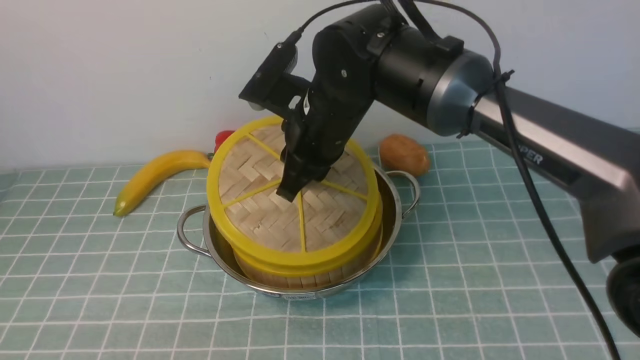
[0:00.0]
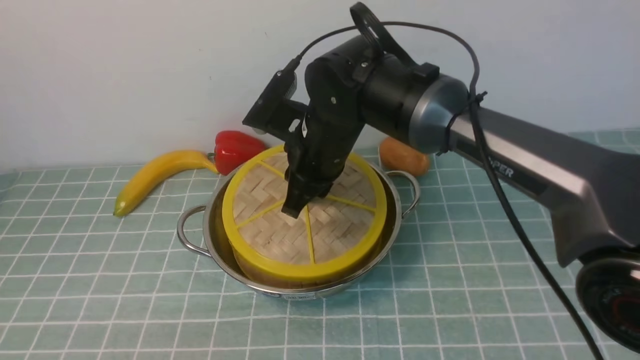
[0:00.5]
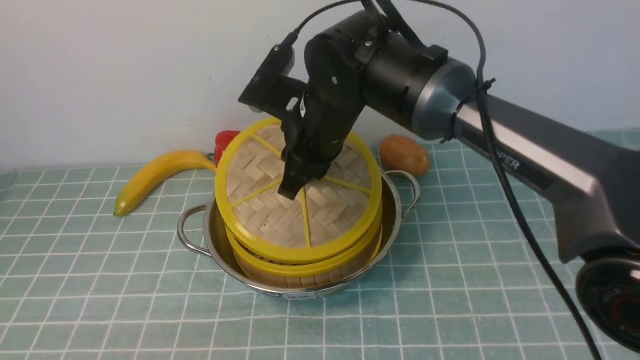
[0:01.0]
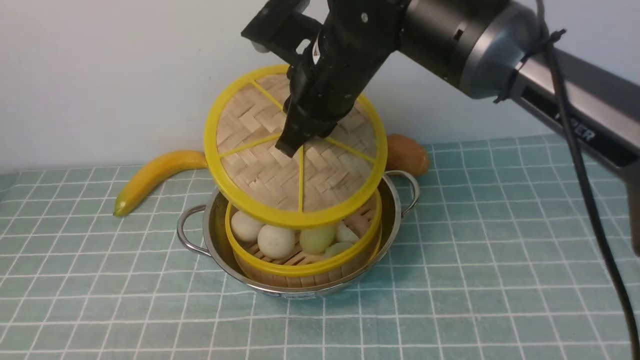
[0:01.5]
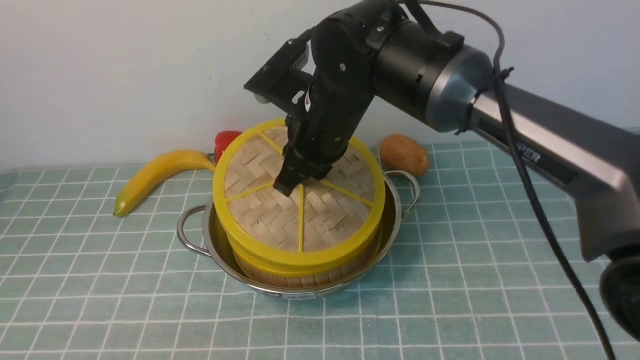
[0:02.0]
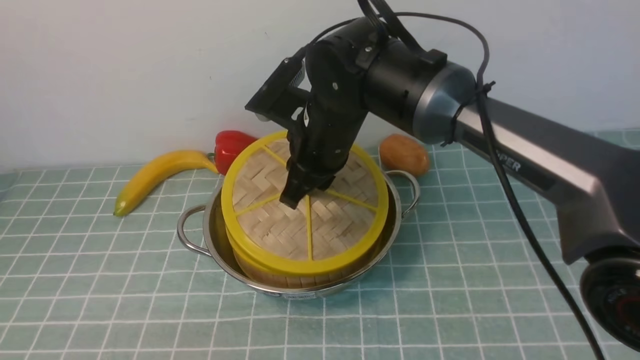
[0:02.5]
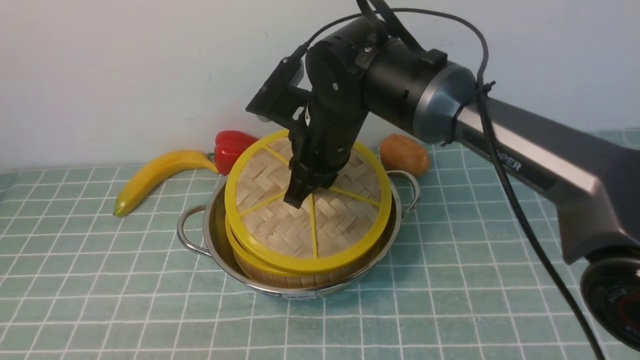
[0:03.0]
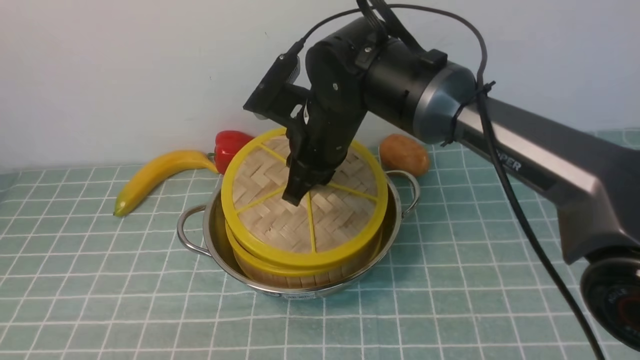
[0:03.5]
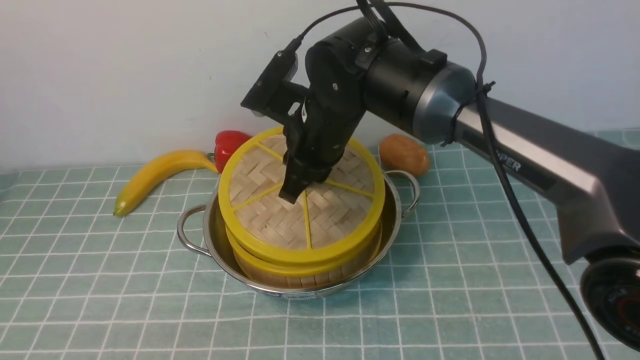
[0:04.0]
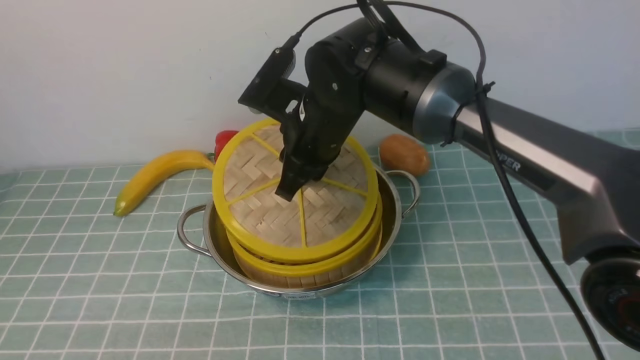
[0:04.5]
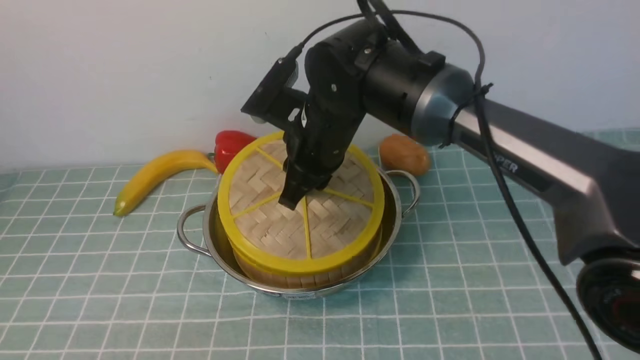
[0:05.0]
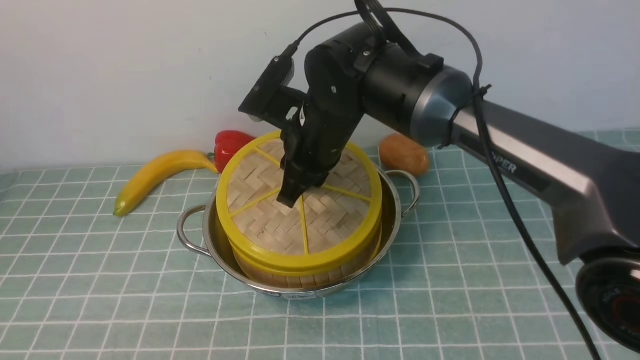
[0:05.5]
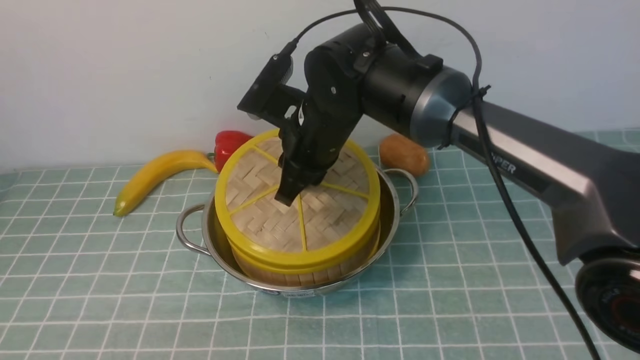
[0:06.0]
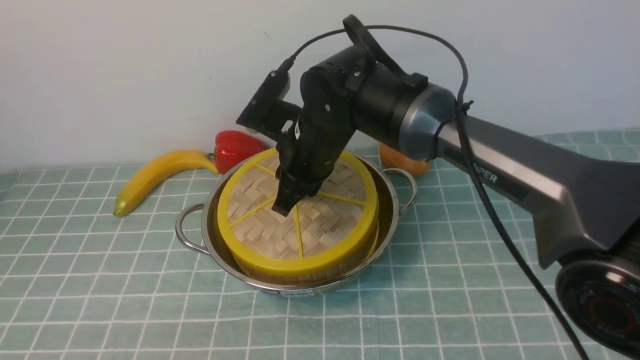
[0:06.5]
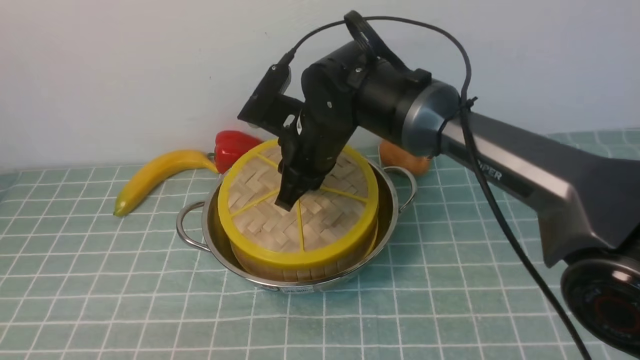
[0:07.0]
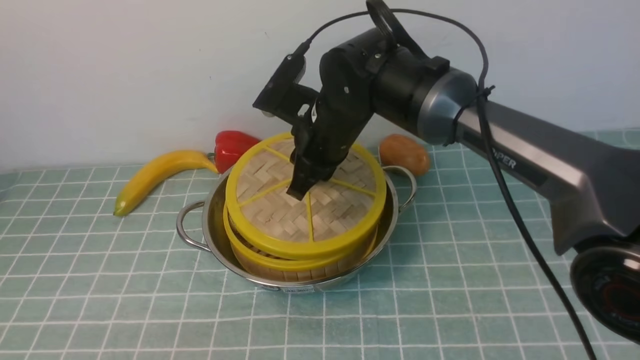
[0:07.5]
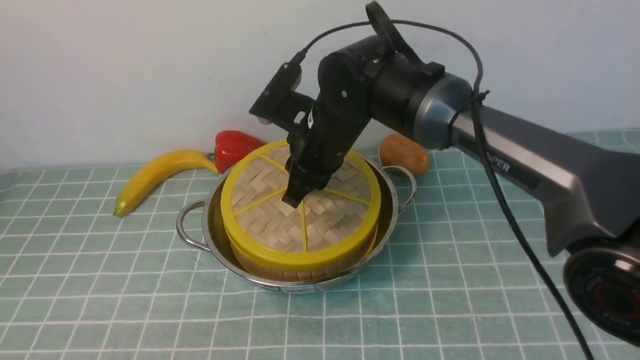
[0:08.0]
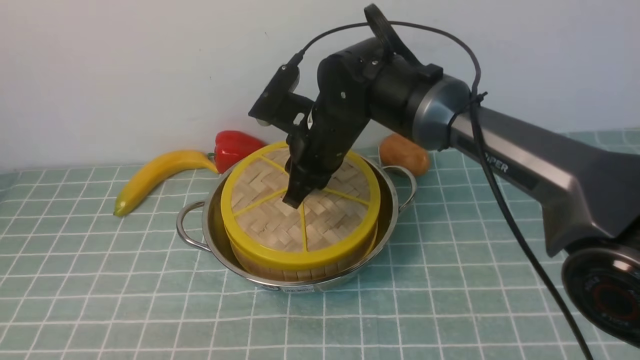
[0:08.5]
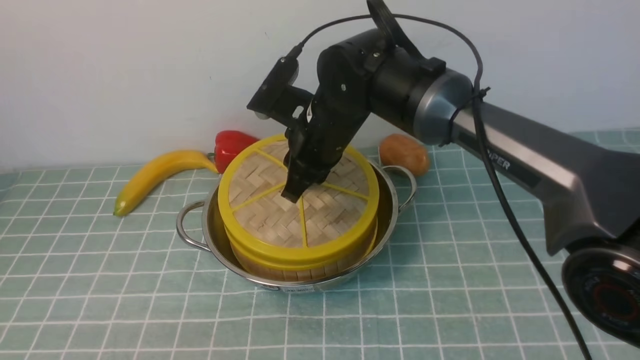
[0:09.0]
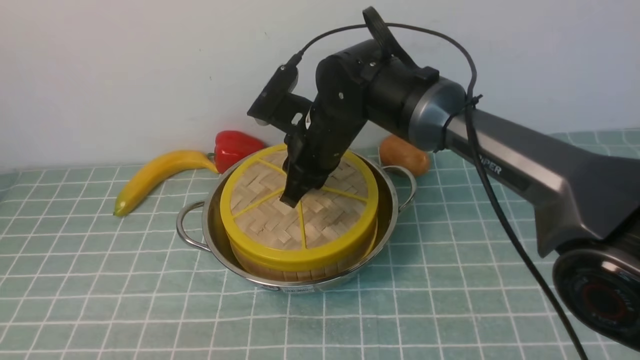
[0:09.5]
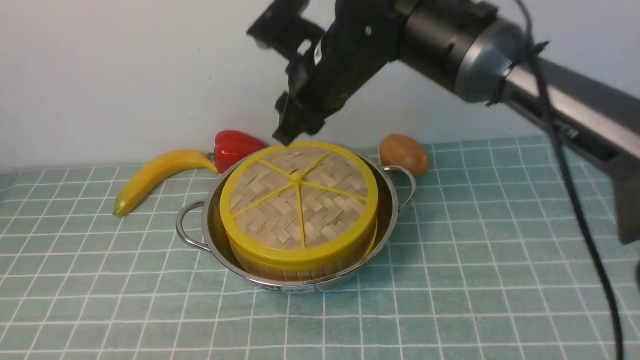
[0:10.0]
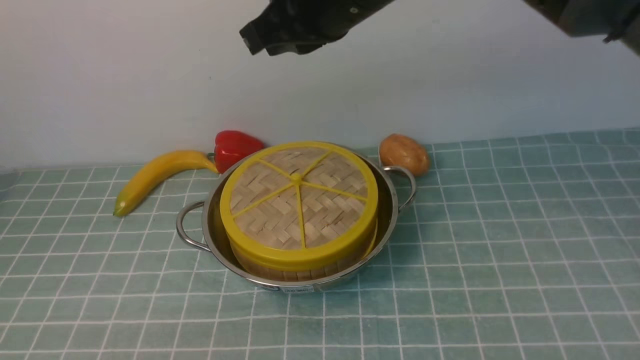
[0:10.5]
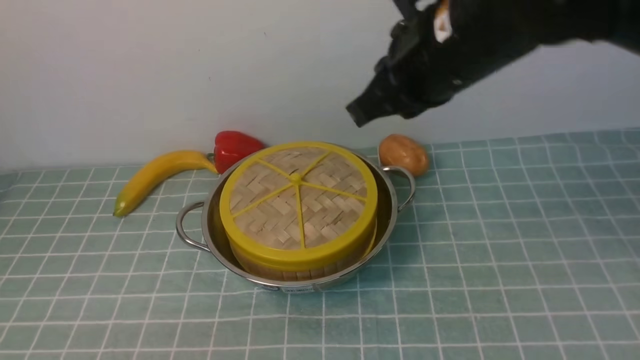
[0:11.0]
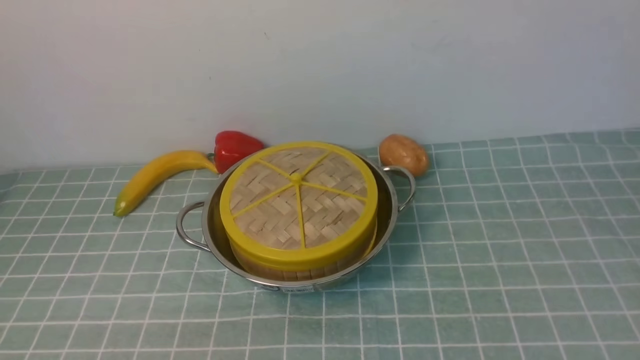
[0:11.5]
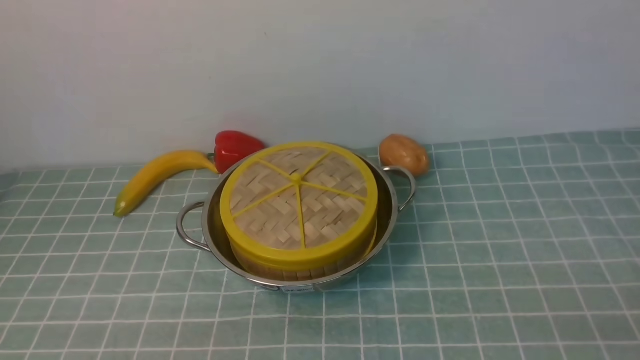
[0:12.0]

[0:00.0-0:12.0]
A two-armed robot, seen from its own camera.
Task of the whole recording: place the steamer in the pot on the blue tablecloth, and put the lid on the steamer.
Step, 0:00.0 to 0:10.5: use the right arm to place the steamer lid on the steamer.
0:00.0 to 0:04.0: The grippers move only a little.
0:04.0 to 0:06.0: Both grippers stay about where they are.
0:06.0 to 0:08.0: The grippers make only small movements.
0:08.0 to 0:10.0: The right gripper travels upward by roughly 5 cm, and opens.
0:10.0 to 0:12.0: The right gripper shifts about 50 cm backward and to the right, and closes.

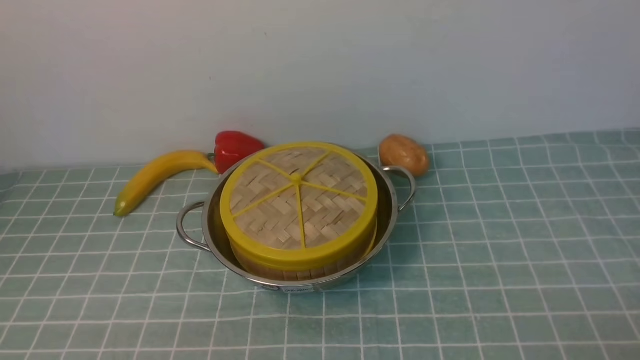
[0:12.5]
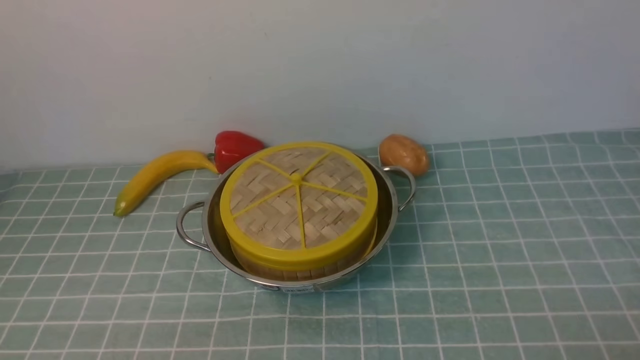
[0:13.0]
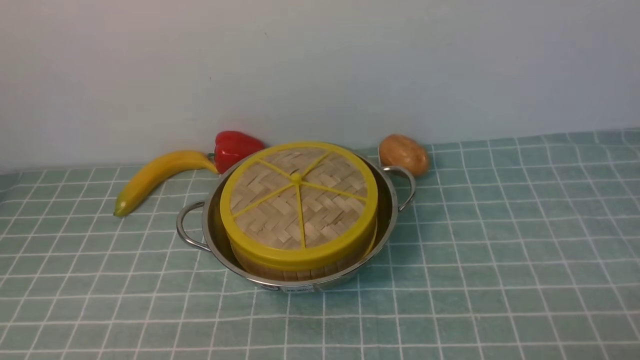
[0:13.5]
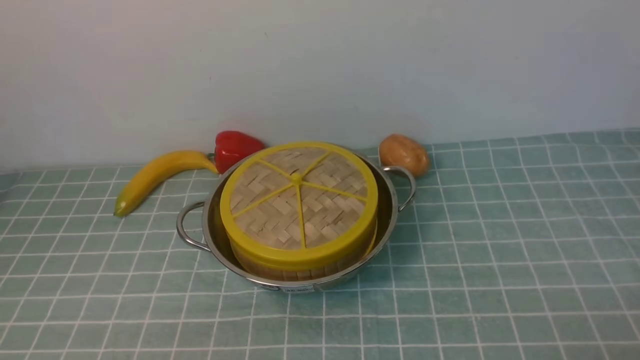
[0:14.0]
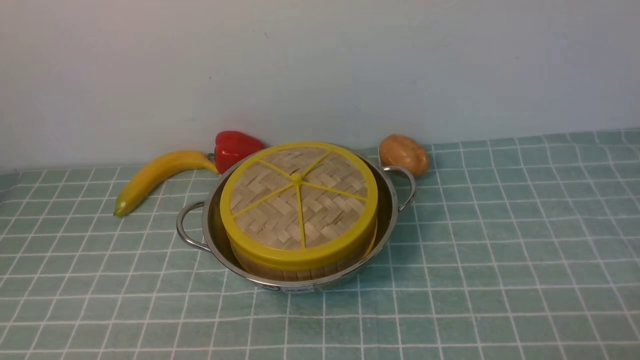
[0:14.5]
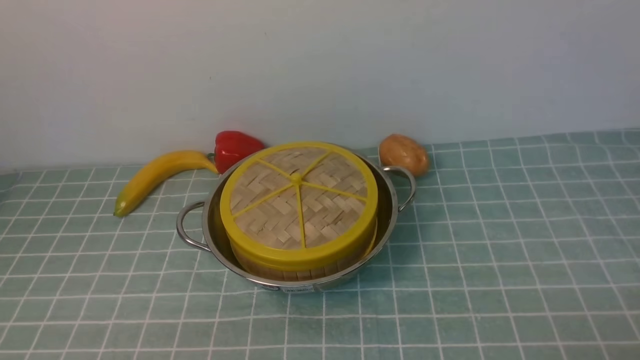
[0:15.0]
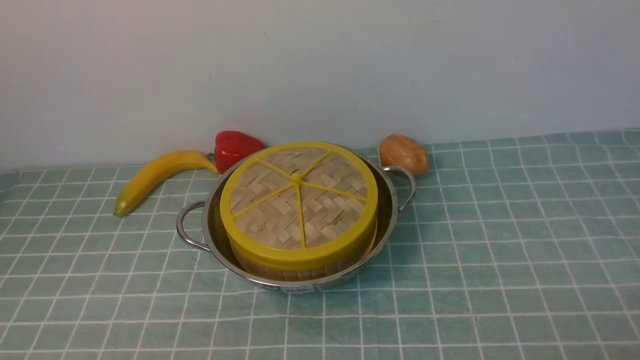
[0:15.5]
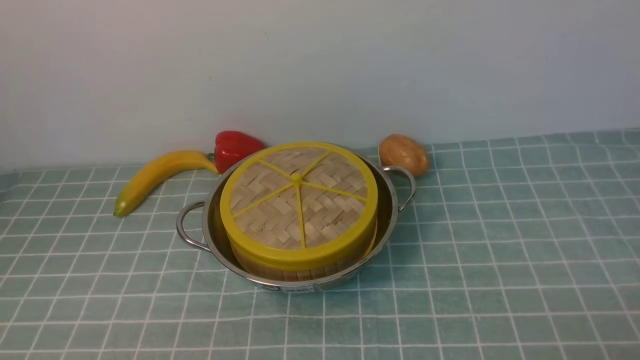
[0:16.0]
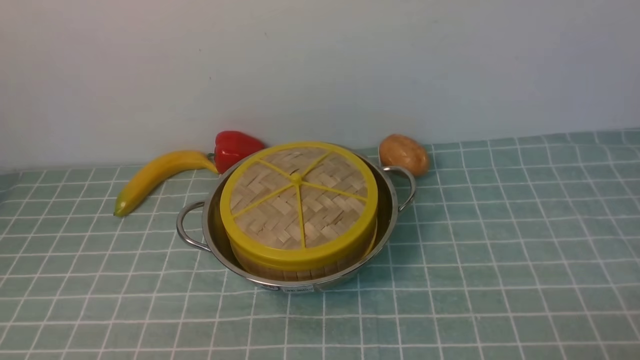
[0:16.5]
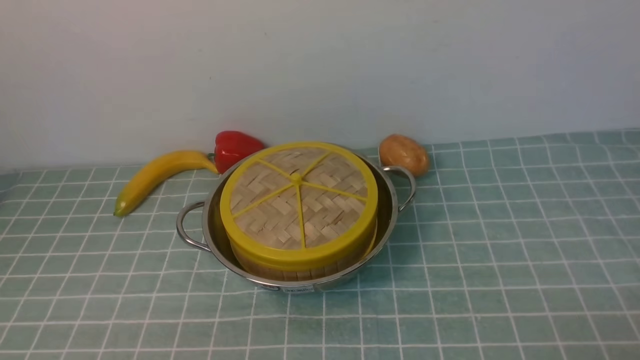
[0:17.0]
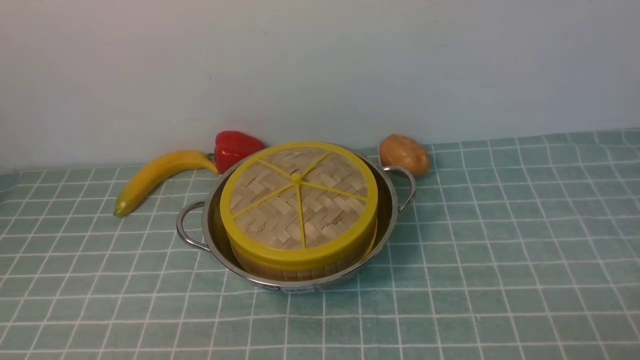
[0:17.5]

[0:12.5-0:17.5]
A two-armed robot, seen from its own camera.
Task of the whole recording: place the steamer in the pot on the blue tablecloth, and put the lid on the steamer.
0:15.0 to 0:17.5: Both grippers stay put.

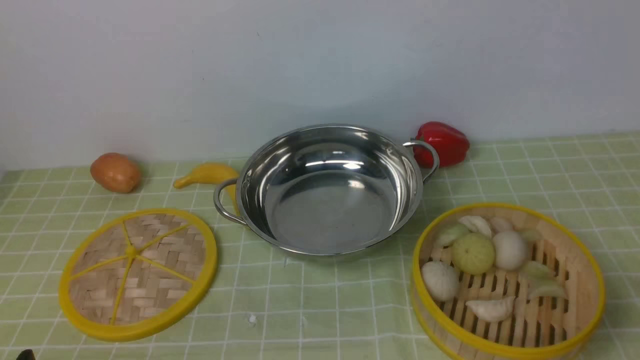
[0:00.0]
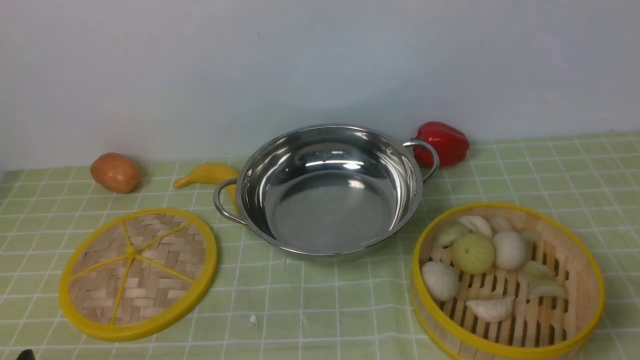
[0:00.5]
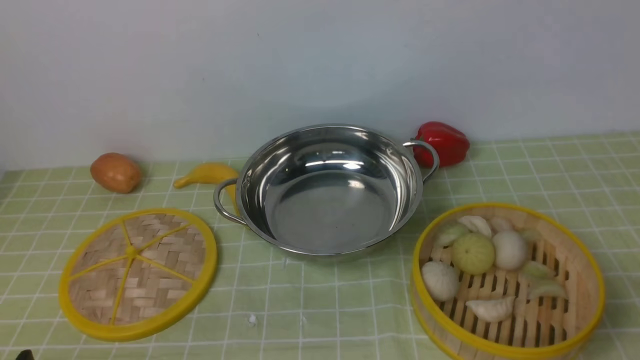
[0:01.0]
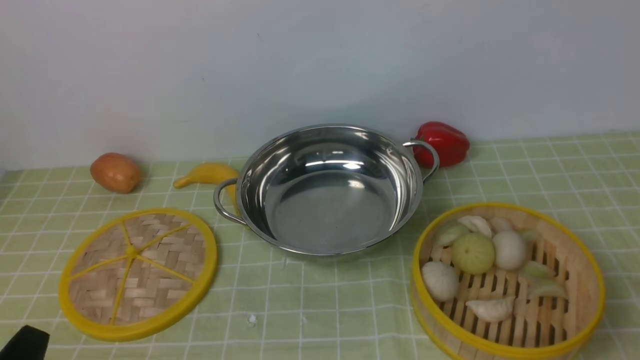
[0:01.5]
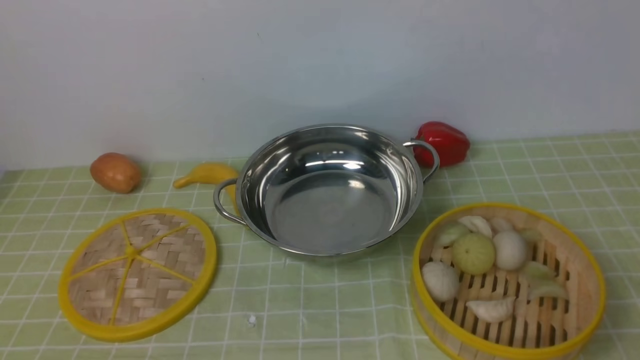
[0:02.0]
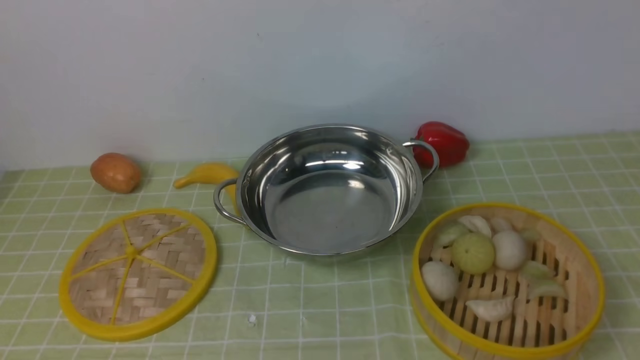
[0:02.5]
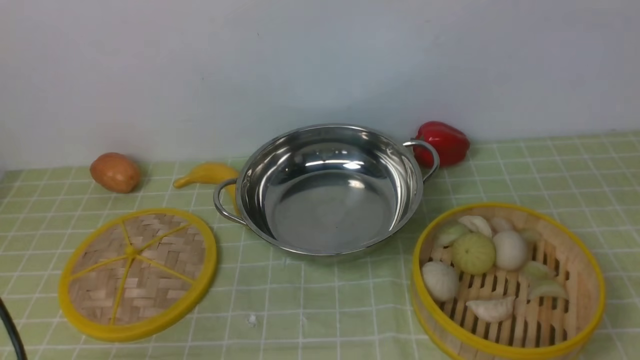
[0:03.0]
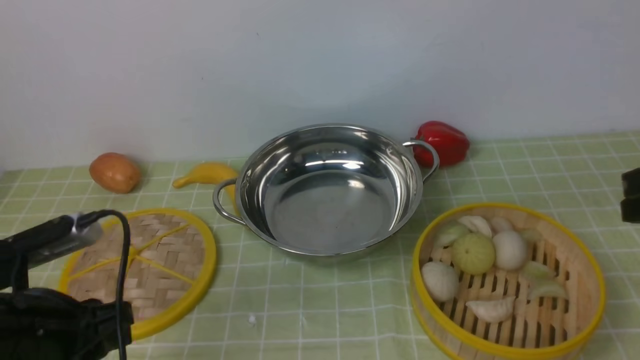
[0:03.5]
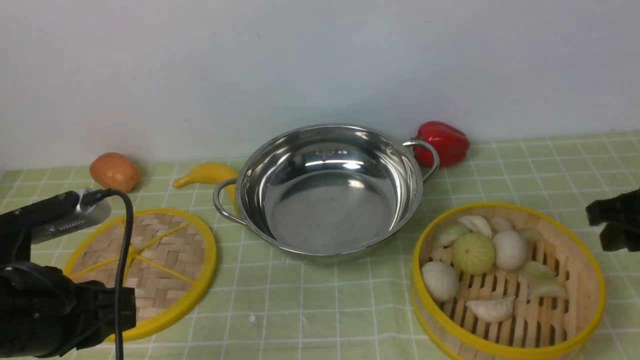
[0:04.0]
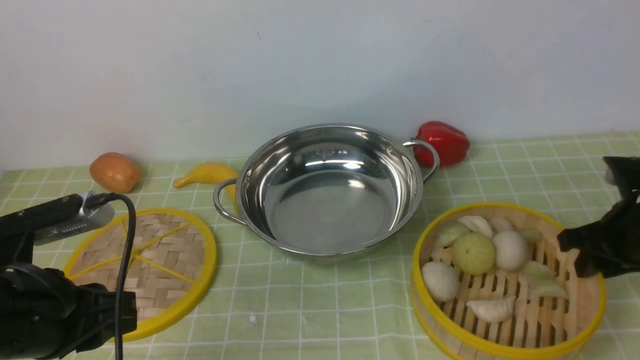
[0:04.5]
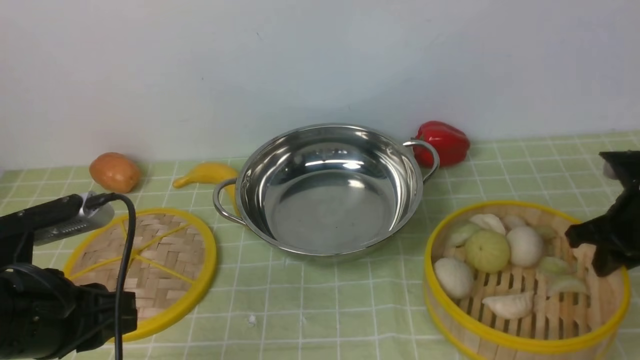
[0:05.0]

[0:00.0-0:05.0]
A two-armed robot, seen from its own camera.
Task of the whole recording: place the steamer in the pot on the green tablecloth, and put the lid on the steamer.
0:02.5 to 0:05.0: The left gripper travels downward and forward by roughly 15 cm; the right gripper goes approximately 30 cm forward and downward, and closes up.
